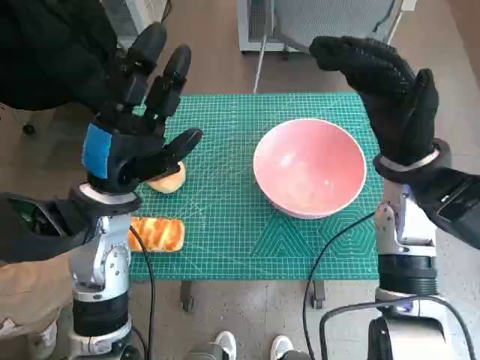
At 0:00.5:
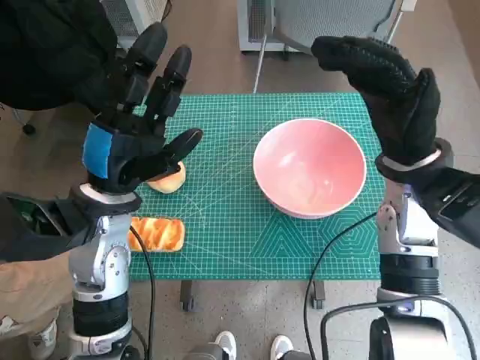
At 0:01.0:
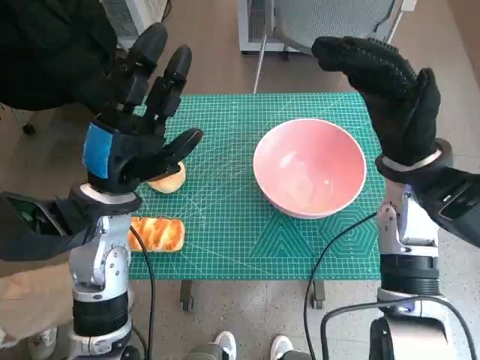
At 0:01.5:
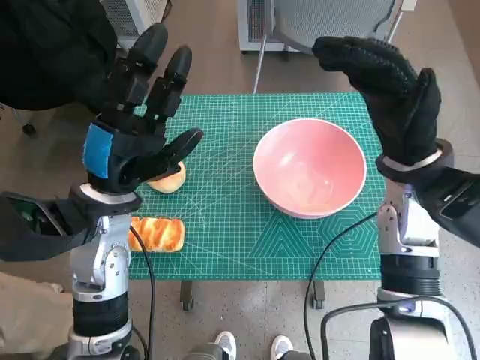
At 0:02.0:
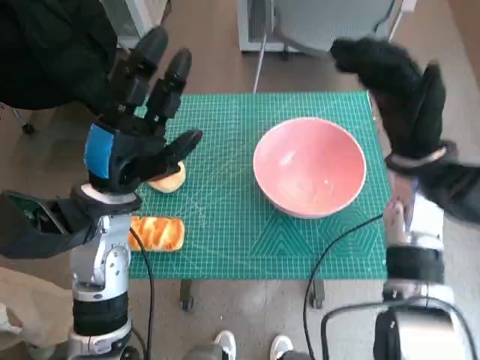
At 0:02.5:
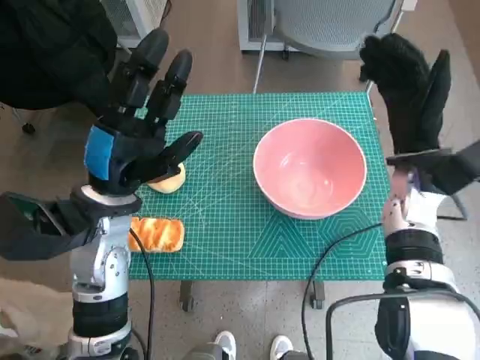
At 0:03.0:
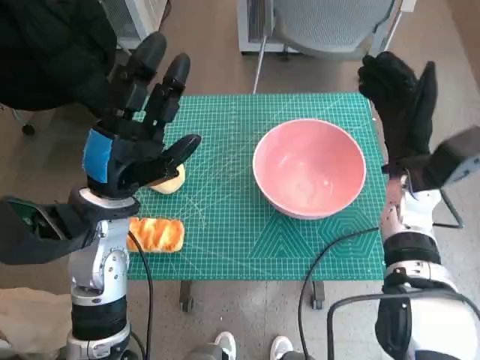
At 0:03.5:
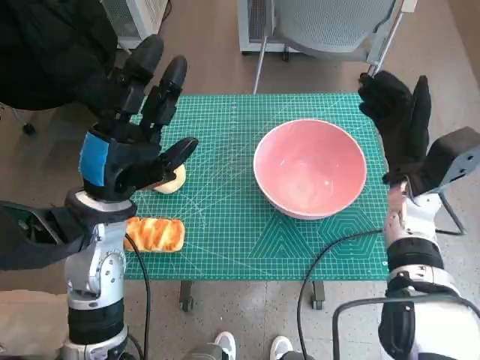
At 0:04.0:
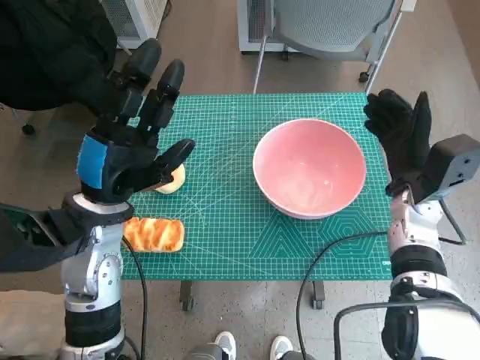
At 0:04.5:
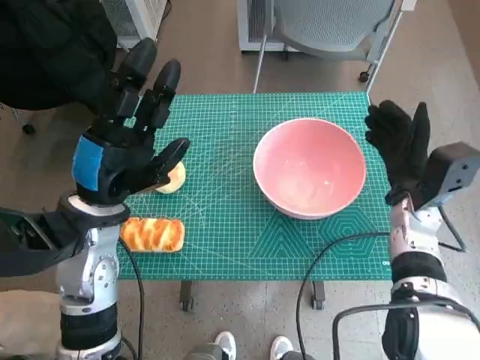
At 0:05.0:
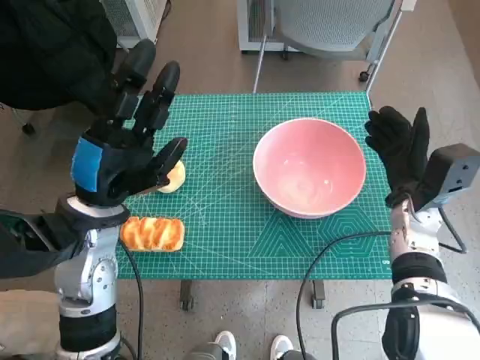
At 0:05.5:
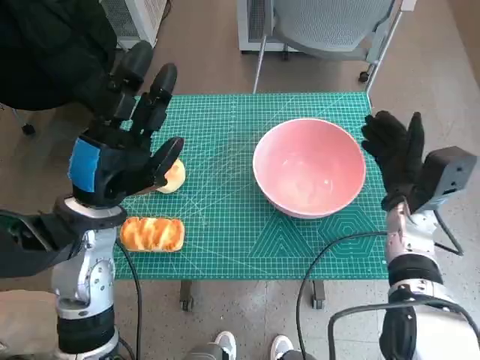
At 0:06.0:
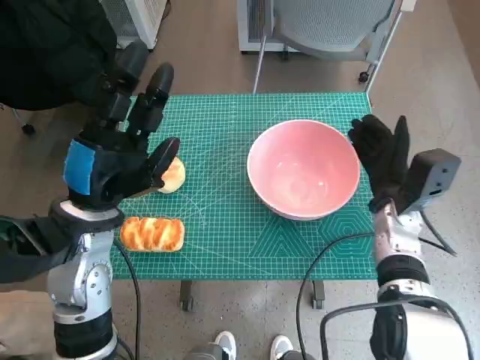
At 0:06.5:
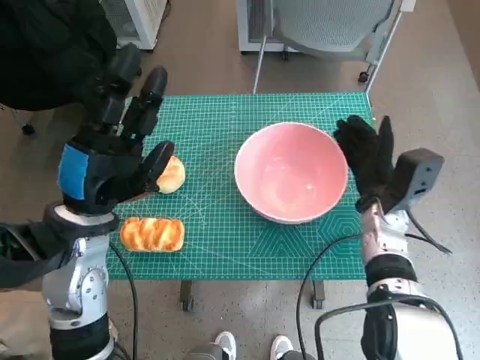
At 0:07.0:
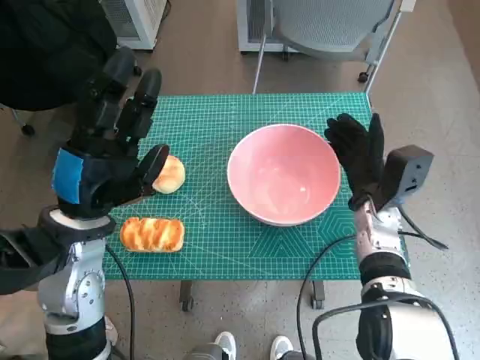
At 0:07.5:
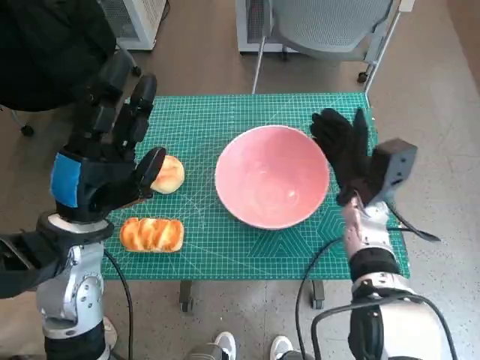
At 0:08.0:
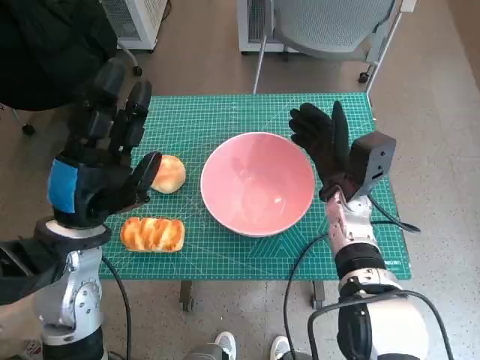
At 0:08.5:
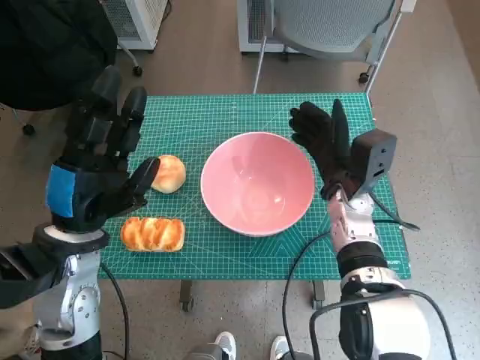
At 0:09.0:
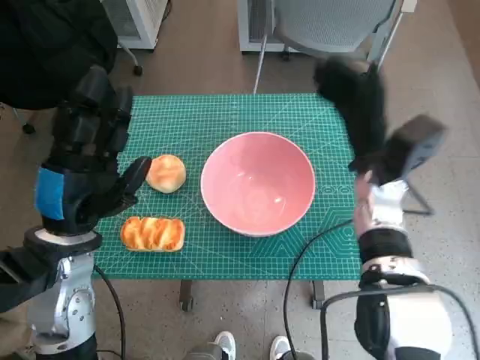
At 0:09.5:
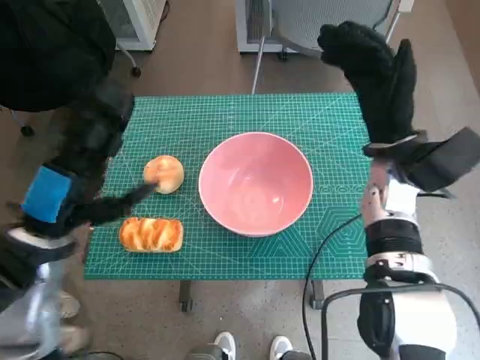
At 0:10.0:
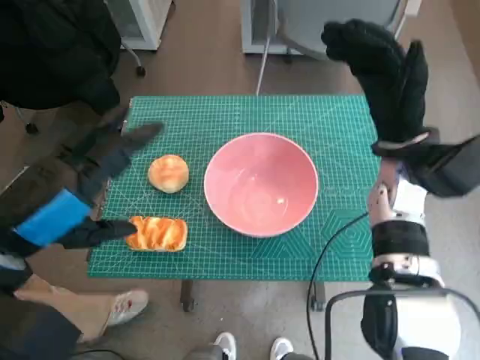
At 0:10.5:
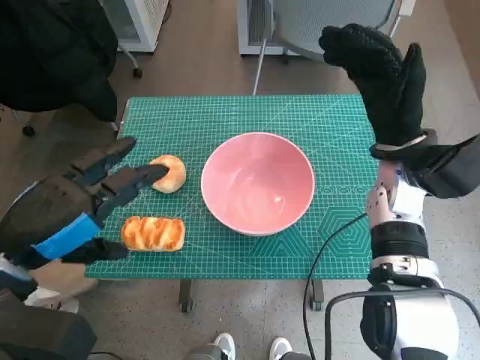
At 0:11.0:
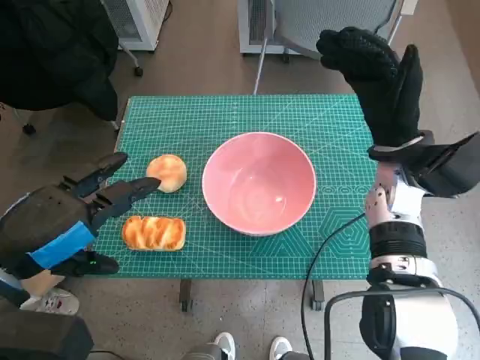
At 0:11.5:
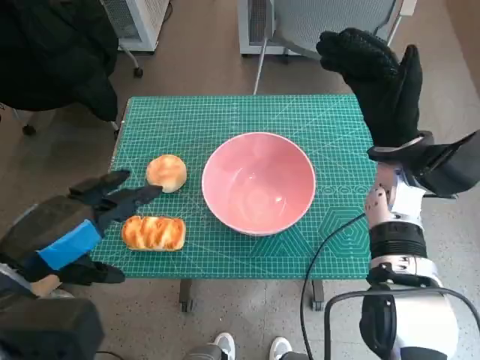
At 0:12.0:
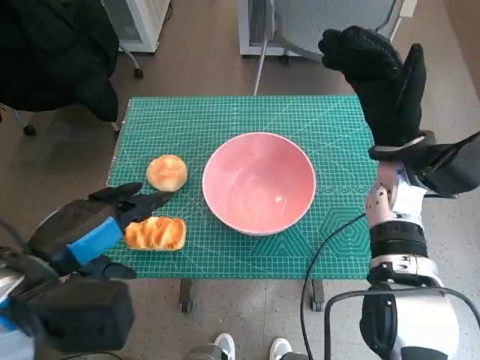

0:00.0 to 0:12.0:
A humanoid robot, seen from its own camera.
Step, 0:00.0 to 0:08.5: Move the pink bowl to the center of table with right hand.
0:02.0 to 0:04.0: The right hand shifts approximately 10 cm downward.
0:06.0 to 0:08.0: The right hand goes some 5 cm to the left.
0:08.0 to 0:10.0: The right hand travels upward by roughly 10 cm, while the left hand moves upward and backward, about 10 cm.

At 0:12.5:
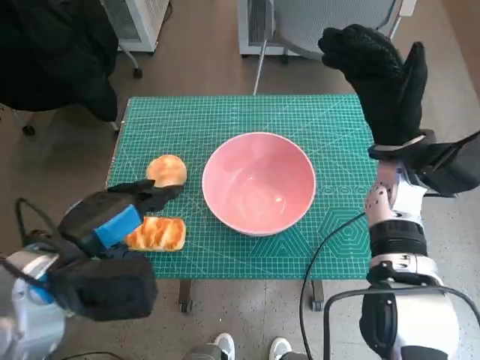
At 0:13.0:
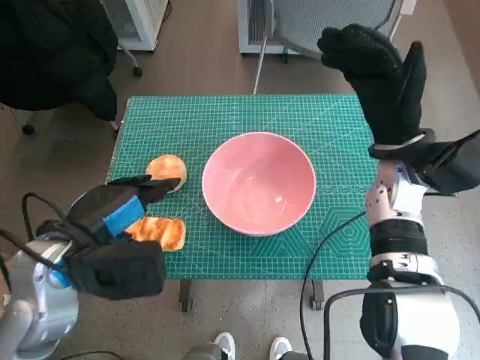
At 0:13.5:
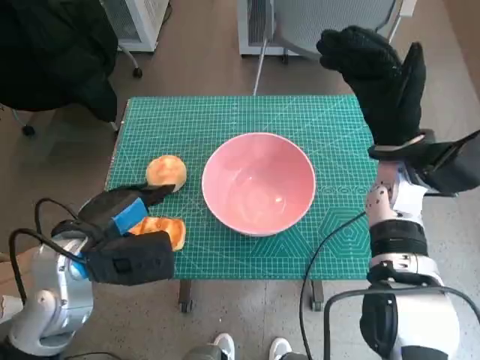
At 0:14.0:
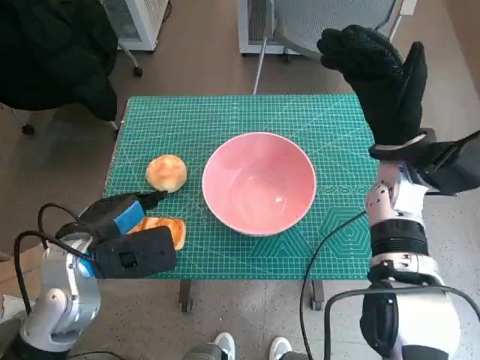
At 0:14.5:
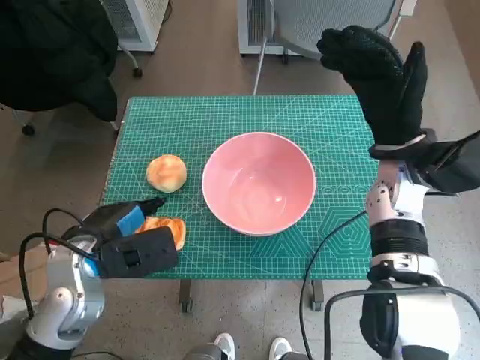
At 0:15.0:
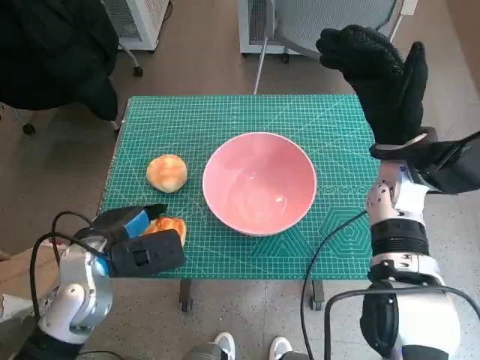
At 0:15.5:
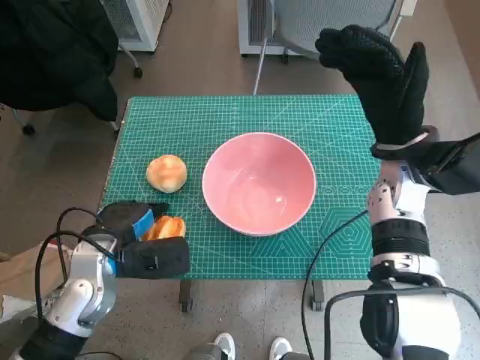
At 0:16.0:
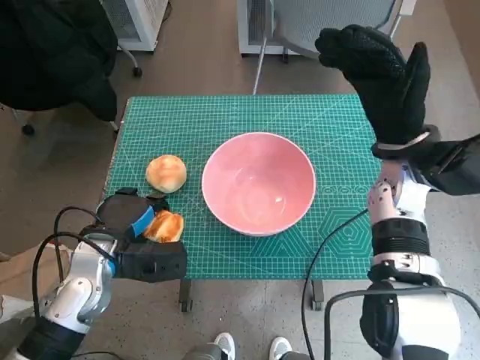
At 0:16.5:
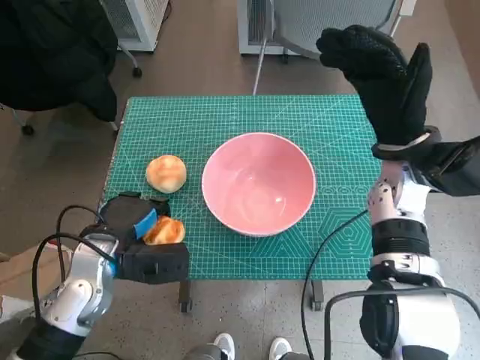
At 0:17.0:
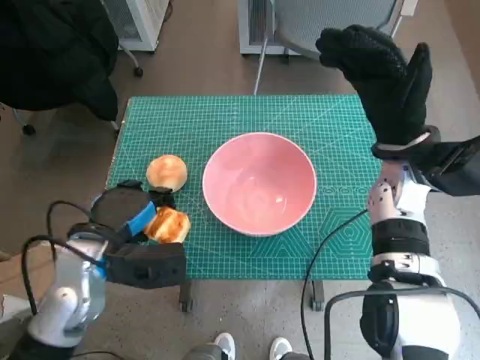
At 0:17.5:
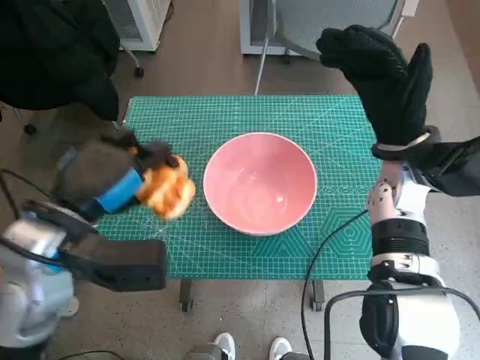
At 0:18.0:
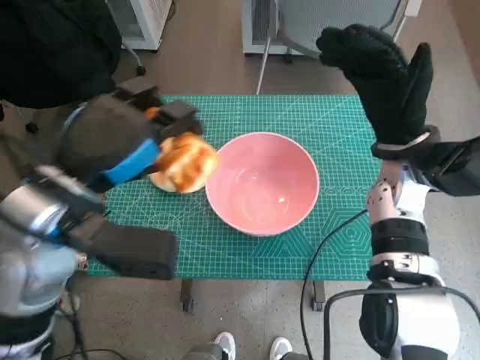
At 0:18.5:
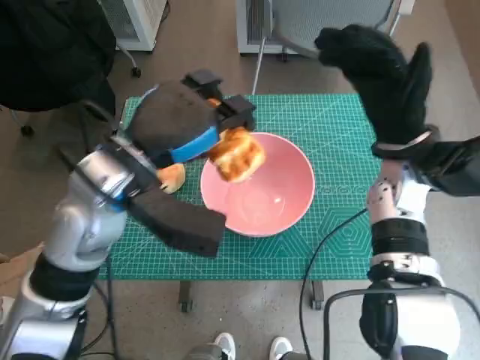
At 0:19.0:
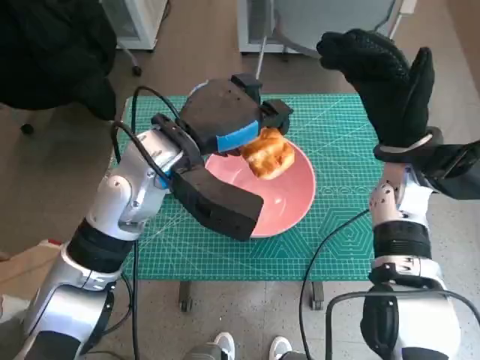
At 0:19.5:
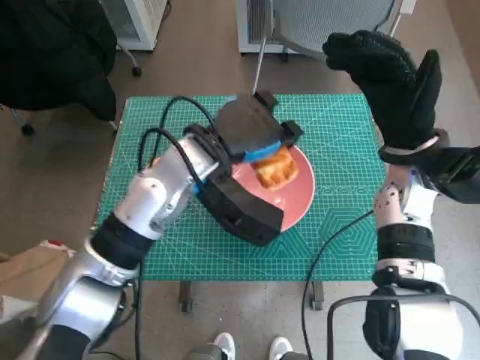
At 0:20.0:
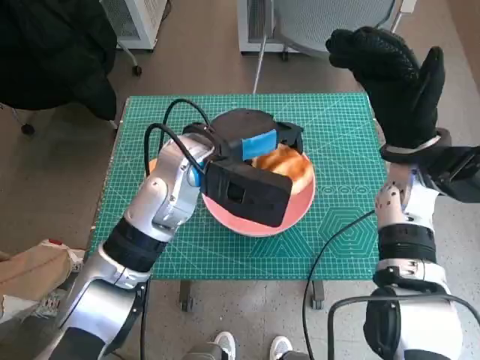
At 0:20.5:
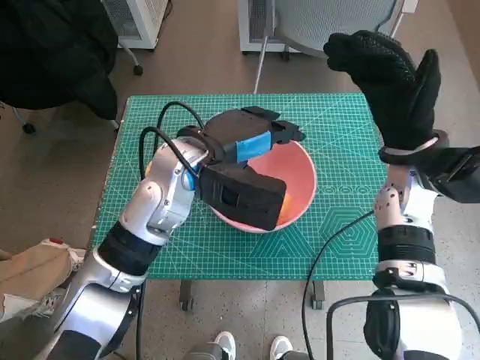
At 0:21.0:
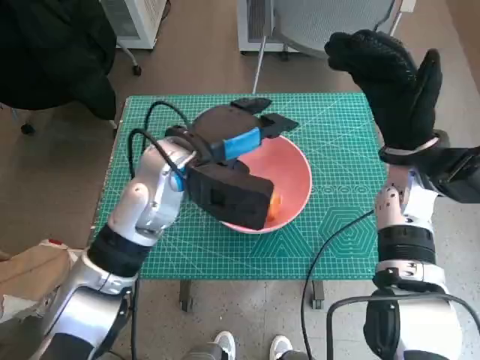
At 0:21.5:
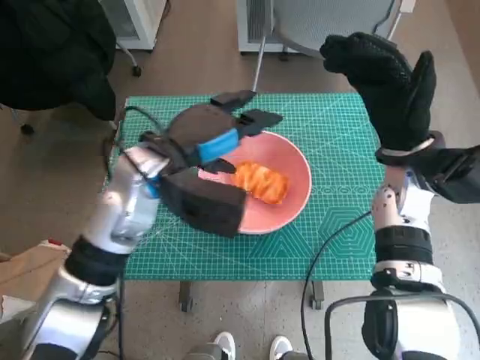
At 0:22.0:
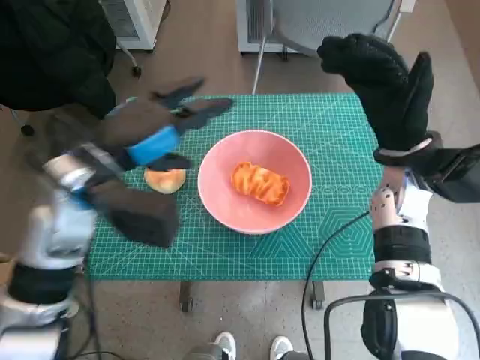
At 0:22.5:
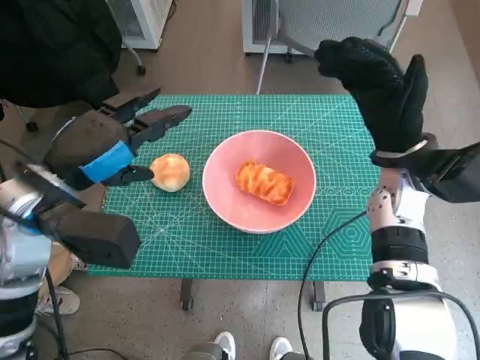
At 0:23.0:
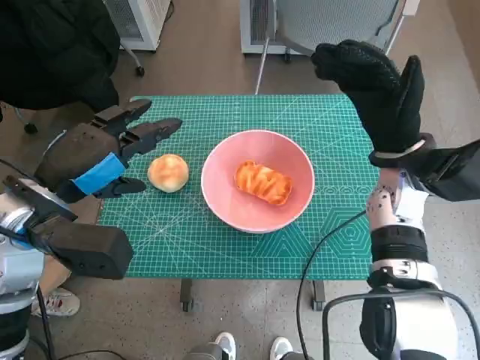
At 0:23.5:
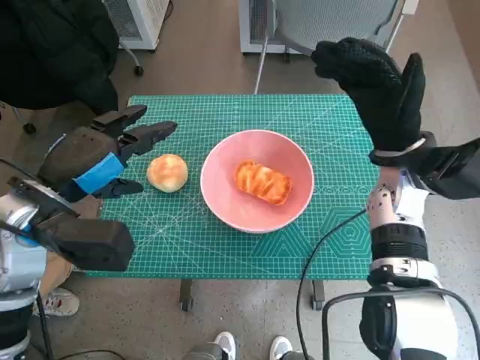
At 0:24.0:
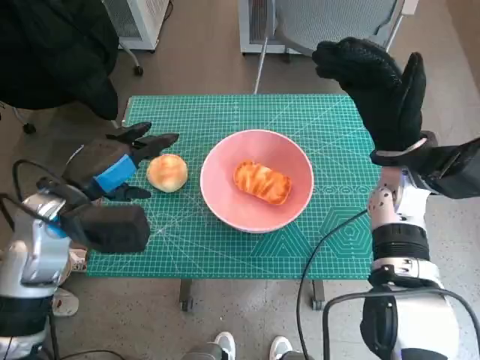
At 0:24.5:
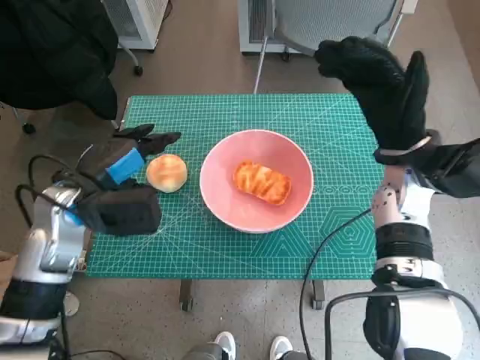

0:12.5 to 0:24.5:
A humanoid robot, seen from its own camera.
Step, 0:12.5 to 0:15.5: Grasp the long bread with left hand.
Step, 0:16.0 to 0:20.5: Place the long bread in pink bowl with left hand.
0:12.5 to 0:14.5: The left hand moves downward, some 5 cm.
0:16.5 to 0:18.5: The left hand is displaced upward and to the right by approximately 15 cm.
0:18.5 to 0:20.5: The left hand travels to the right by about 5 cm.
0:20.5 to 0:22.5: The left hand shifts about 15 cm to the left and backward.
0:22.5 to 0:24.5: The left hand moves downward, some 5 cm.

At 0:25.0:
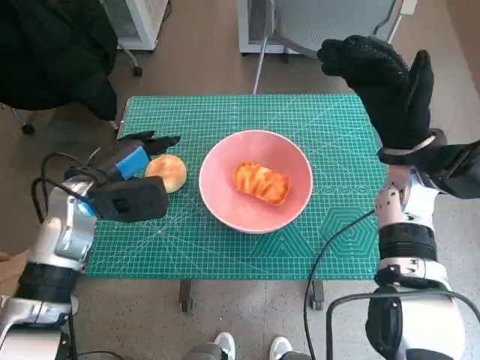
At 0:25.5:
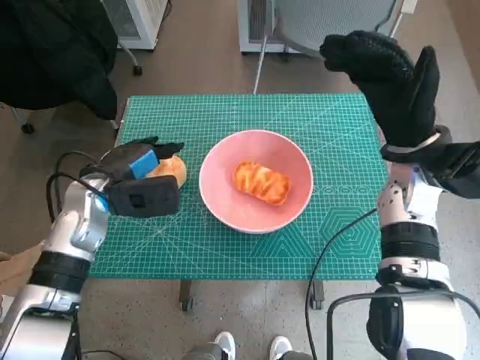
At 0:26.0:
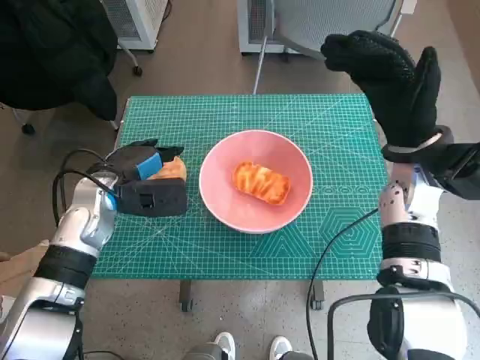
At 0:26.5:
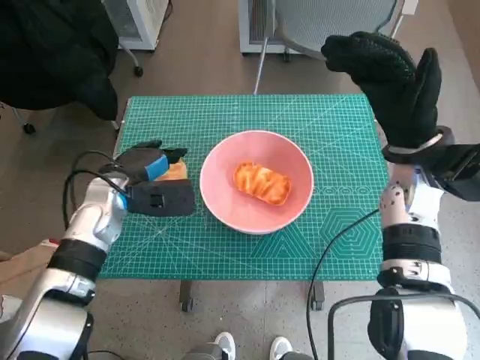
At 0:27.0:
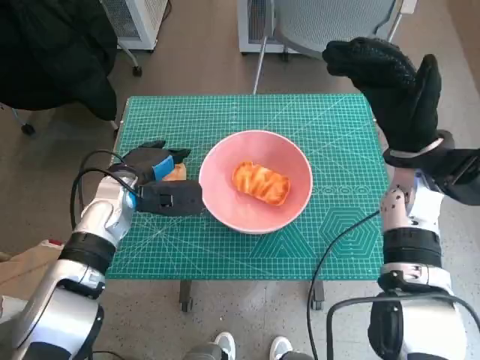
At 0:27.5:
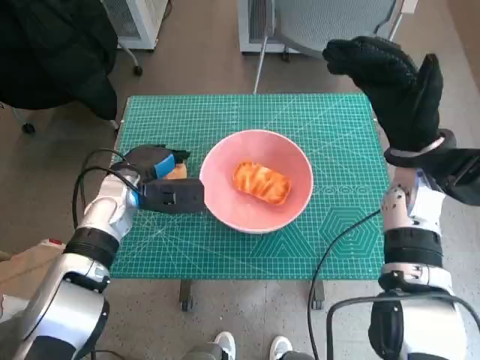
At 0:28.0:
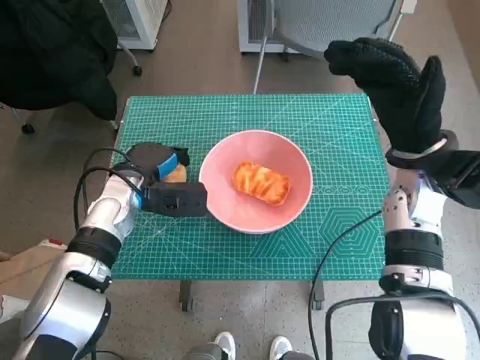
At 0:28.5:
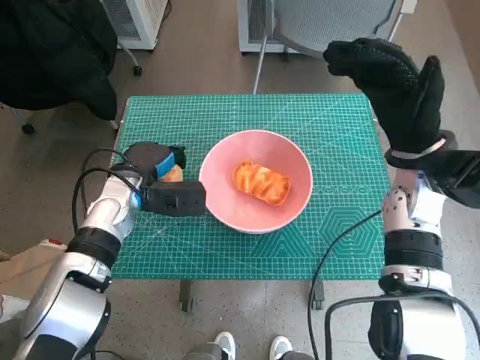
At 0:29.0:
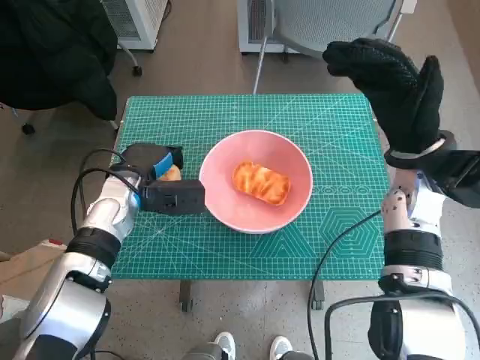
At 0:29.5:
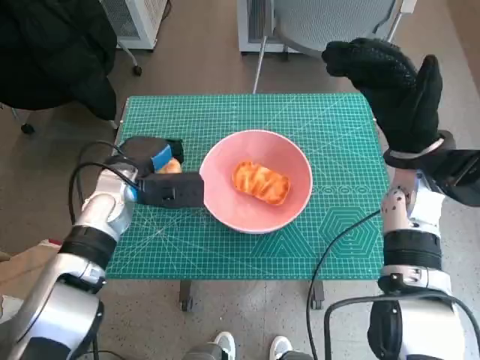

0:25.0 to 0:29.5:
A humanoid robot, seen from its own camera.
Step, 0:25.0 to 0:28.5: Grasp the round bread with left hand.
0:25.0 to 0:27.0: The left hand moves roughly 5 cm.
0:27.0 to 0:29.5: There are only small adjustments of the hands.
